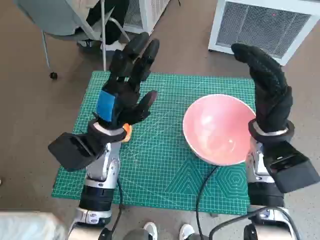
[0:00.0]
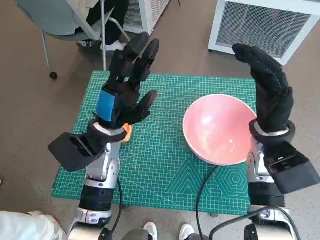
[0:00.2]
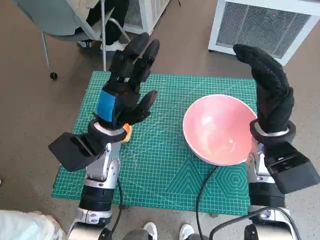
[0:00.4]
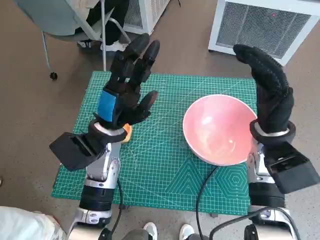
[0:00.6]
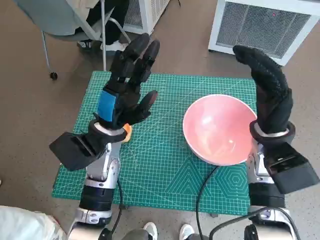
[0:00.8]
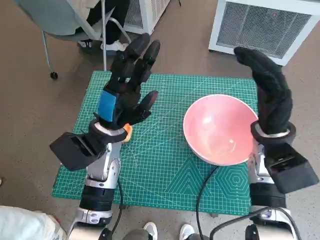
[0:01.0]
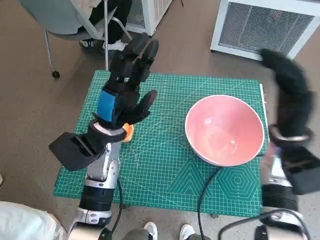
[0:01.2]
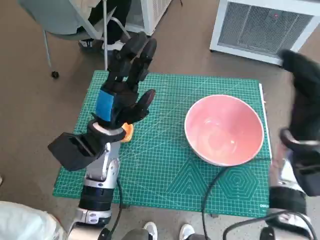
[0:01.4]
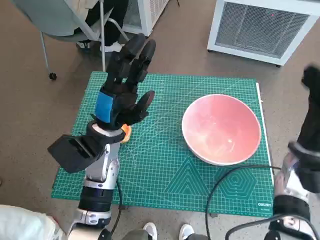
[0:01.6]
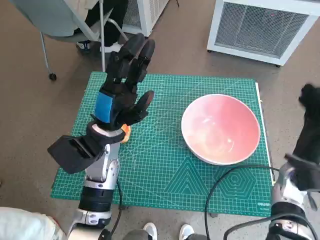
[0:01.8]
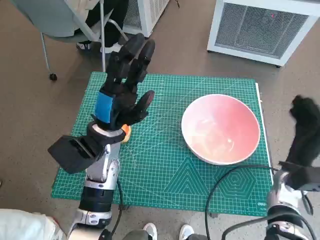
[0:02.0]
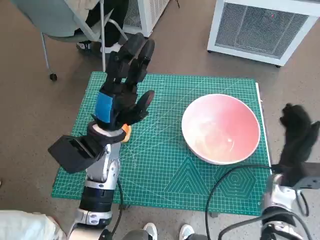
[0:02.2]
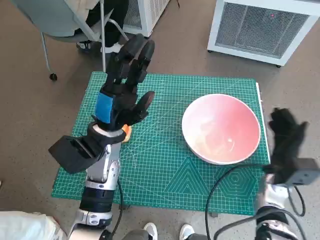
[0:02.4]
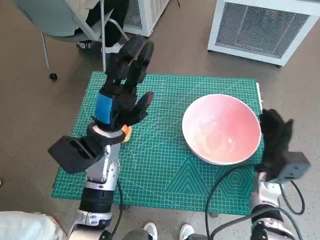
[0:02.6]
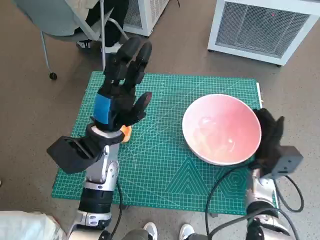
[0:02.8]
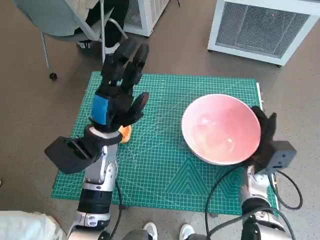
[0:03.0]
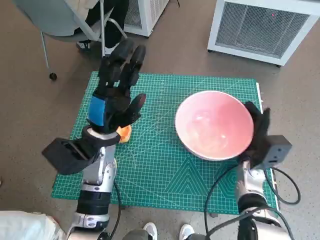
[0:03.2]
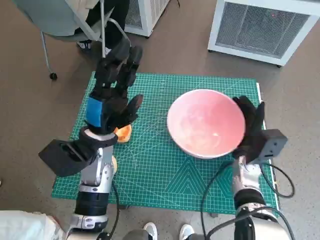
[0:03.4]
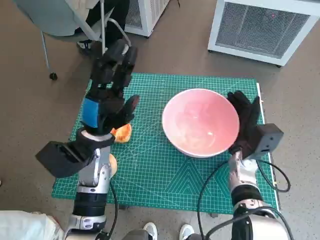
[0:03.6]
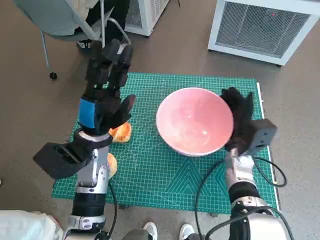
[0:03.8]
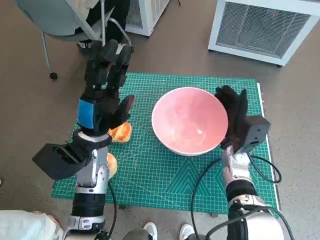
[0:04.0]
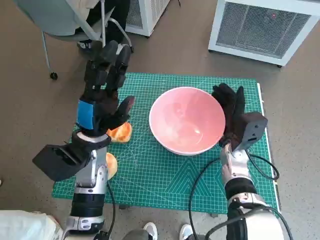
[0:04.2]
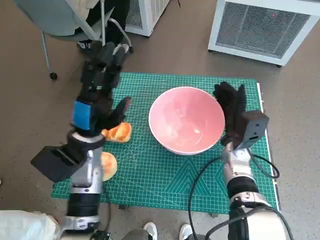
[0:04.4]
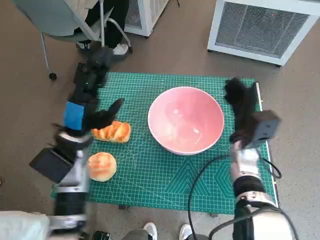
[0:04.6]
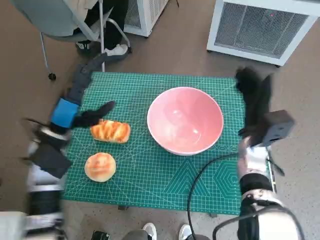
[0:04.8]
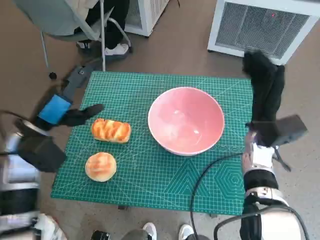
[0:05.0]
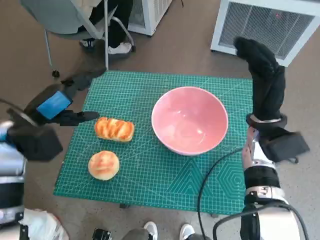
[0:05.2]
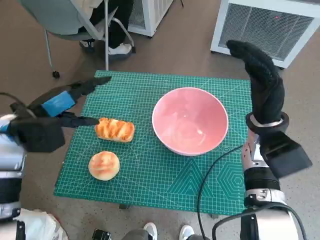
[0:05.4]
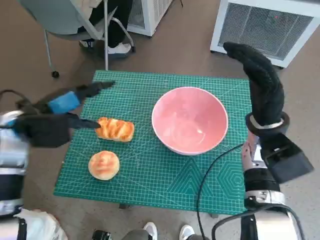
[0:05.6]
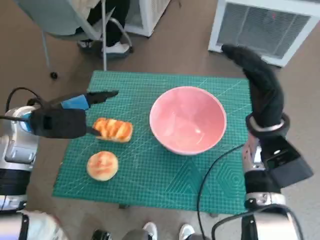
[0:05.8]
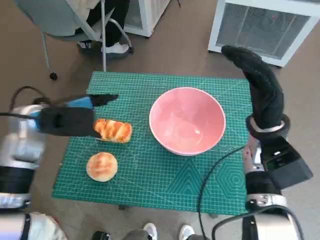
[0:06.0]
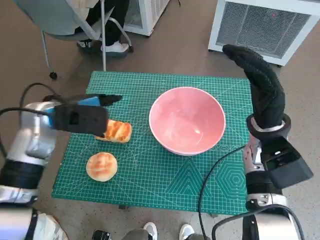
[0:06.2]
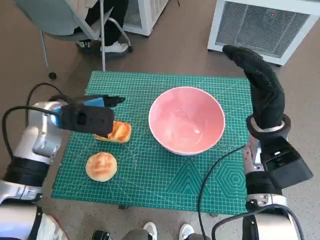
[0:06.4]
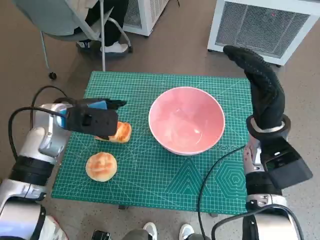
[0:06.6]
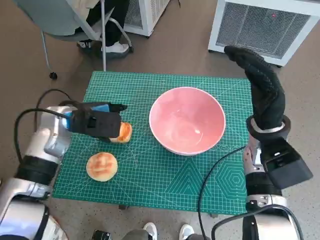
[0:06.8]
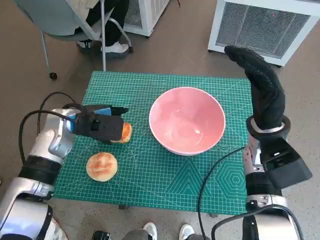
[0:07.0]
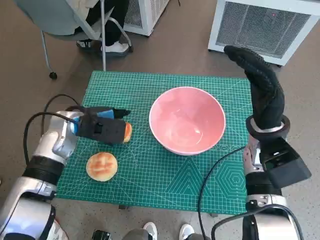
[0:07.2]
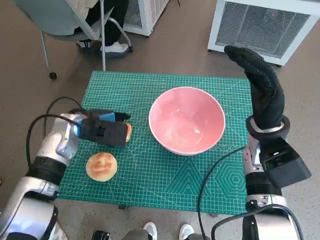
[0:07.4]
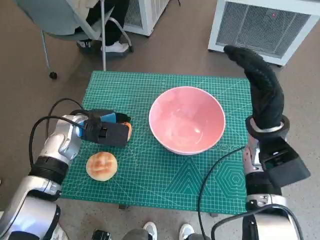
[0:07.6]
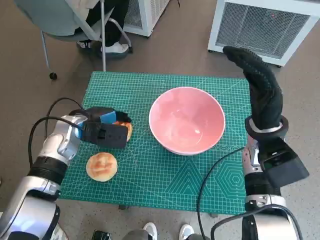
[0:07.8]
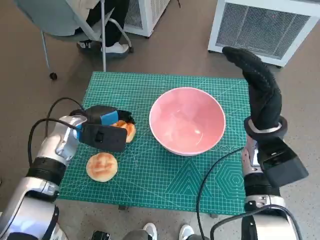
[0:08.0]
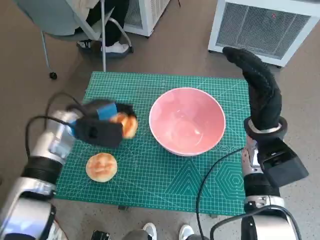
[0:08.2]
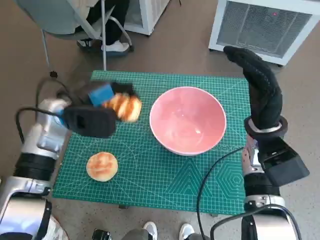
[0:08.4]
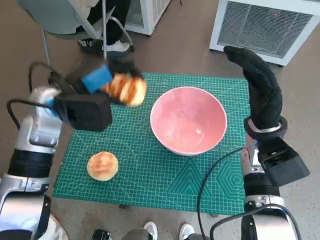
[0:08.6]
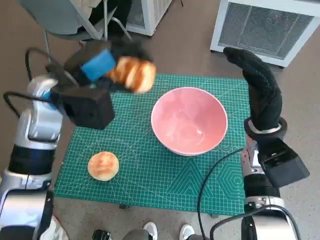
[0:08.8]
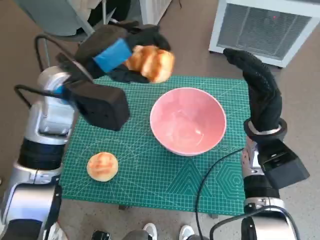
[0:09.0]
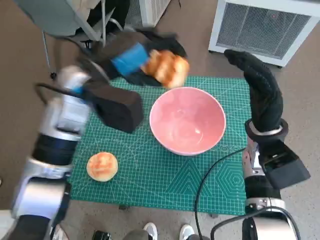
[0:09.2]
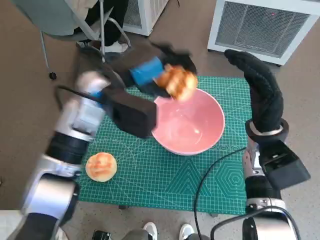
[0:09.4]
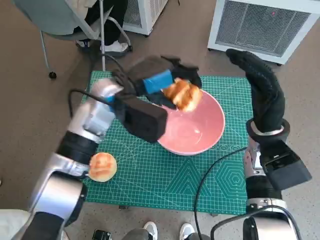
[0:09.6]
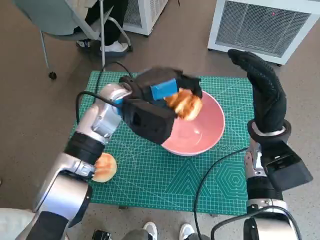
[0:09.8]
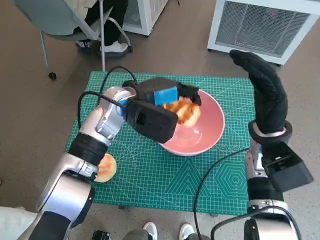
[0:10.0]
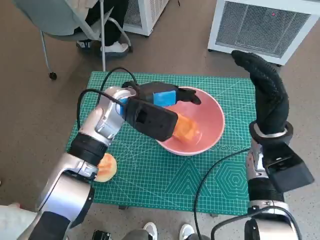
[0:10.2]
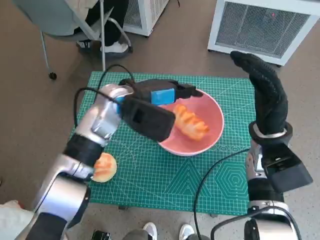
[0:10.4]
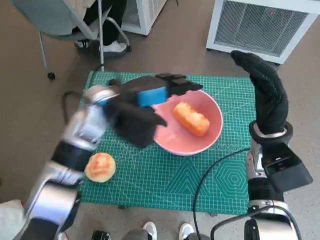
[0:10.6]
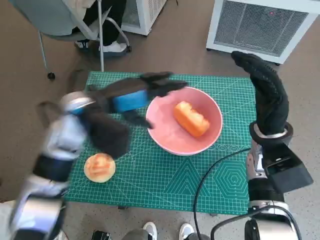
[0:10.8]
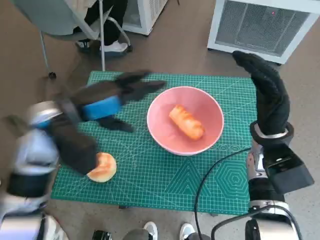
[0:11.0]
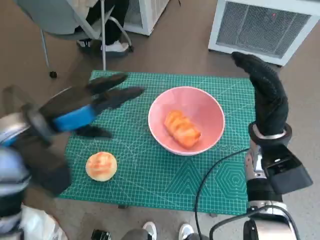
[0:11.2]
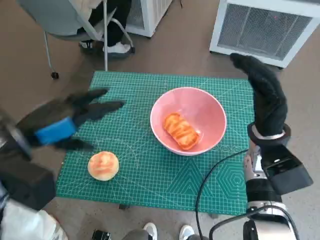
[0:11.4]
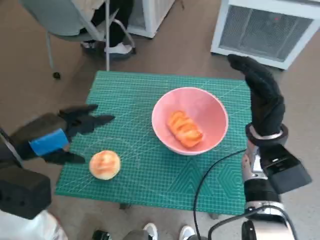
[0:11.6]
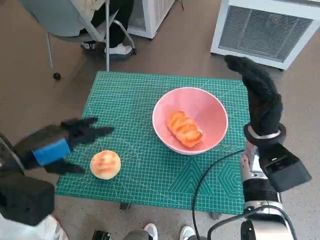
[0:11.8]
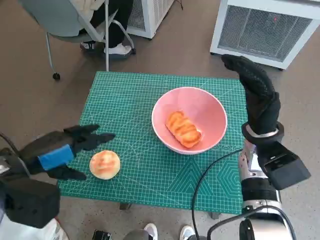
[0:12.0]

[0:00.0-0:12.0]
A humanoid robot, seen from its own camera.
Task of the whole recording: Push the bowl to the center of the table and put the bread into the bowl.
Step, 0.0 to 5.0 s: Move the pink bowl to the center of table with right hand.
Step, 5.2 to 7.8 s: Grasp the long bread with left hand.
Step, 8.0 to 10.6 s: Place the long bread in pink bowl with left hand.
1.6 to 3.0 s: The right hand goes roughly 10 cm downward and to the left.
3.0 to 4.4 s: The right hand heads to the left, covering about 5 cm.
4.4 to 6.0 s: The left hand moves to the left and upward, about 10 cm; the right hand travels upward by approximately 10 cm.
6.0 to 7.6 s: The left hand is displaced downward by approximately 5 cm.
7.6 to 9.0 s: The left hand is displaced upward by some 15 cm.
9.0 to 10.4 s: The left hand shifts about 10 cm downward and to the right.
10.4 to 12.0 s: The left hand heads to the left and backward, covering approximately 20 cm.

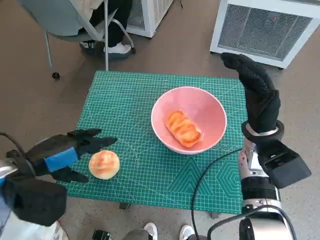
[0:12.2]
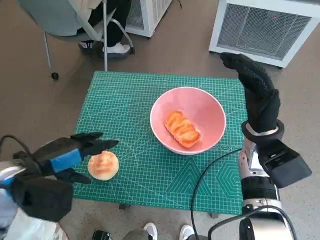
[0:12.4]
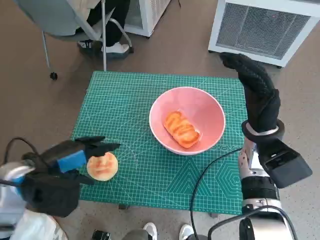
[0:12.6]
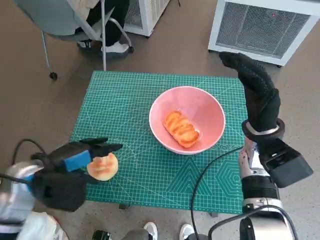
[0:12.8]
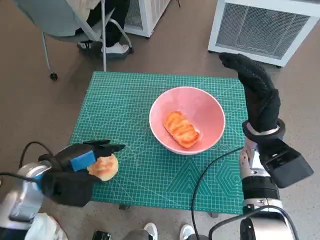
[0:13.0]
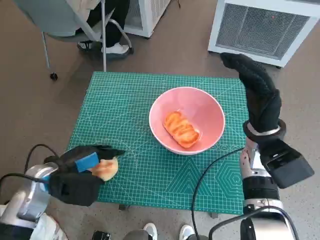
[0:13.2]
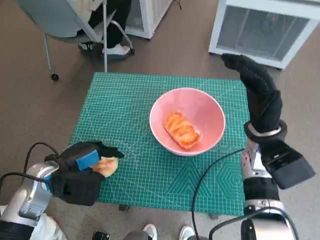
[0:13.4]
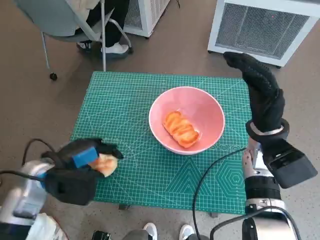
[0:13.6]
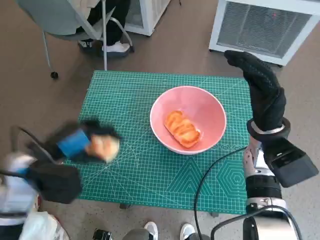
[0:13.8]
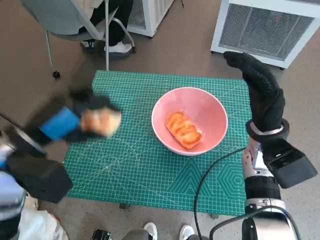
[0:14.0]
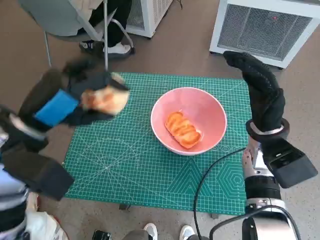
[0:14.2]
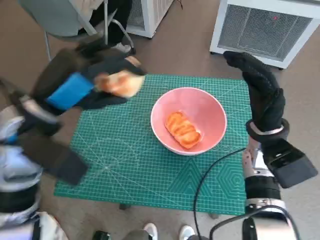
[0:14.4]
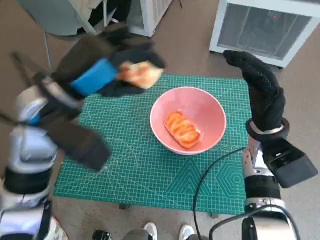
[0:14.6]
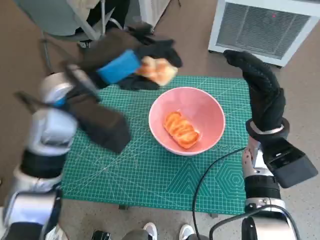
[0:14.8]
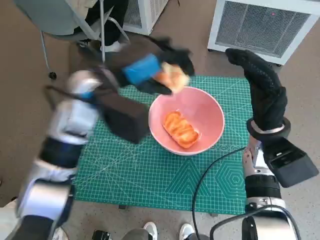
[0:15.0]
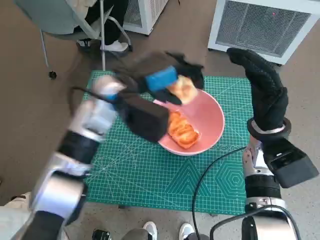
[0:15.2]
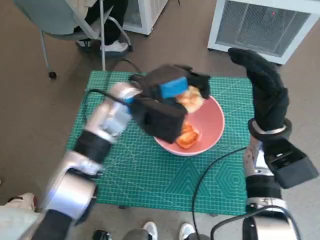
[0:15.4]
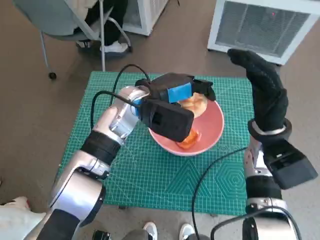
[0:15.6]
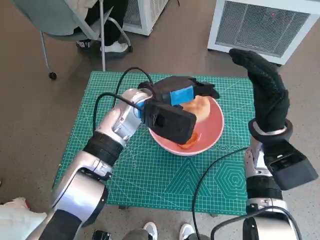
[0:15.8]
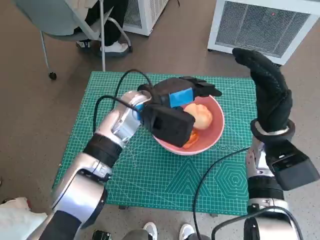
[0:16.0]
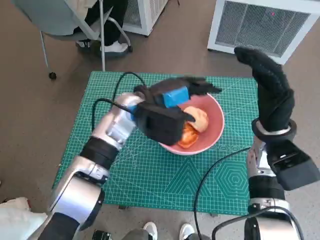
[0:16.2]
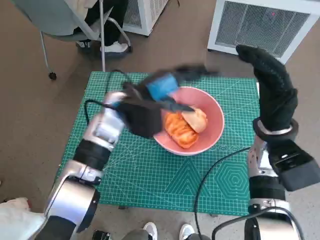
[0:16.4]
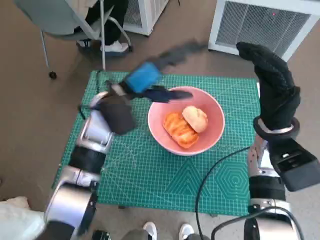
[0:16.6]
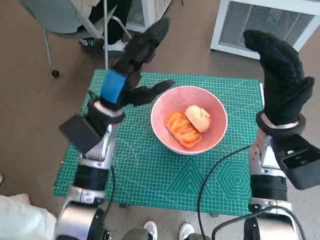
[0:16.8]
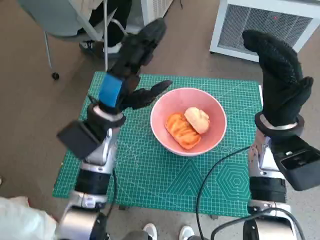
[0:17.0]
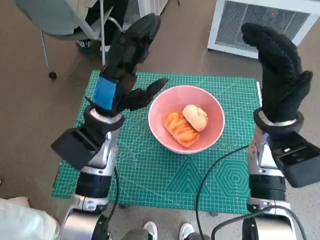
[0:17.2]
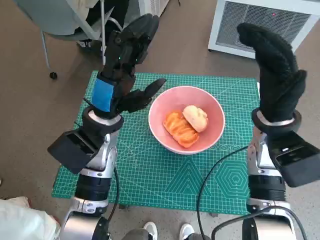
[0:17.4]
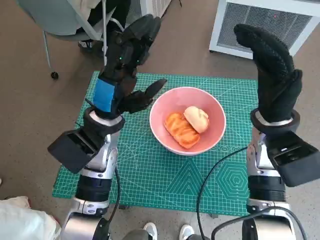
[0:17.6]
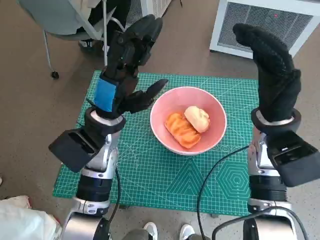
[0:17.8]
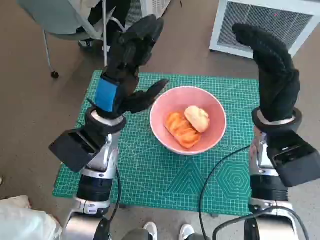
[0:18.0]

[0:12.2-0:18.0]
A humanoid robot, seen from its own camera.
Task of the whole recording: Push the bowl to the center of the table and put the bread into the bowl.
Step, 13.6 to 16.6 s: Place the round bread in pink bowl with left hand.
12.2 to 13.6 s: The left hand shifts about 10 cm downward.
13.6 to 15.0 s: The left hand heads upward, to the right and forward, covering approximately 20 cm.
15.0 to 16.6 s: The left hand goes about 5 cm downward.

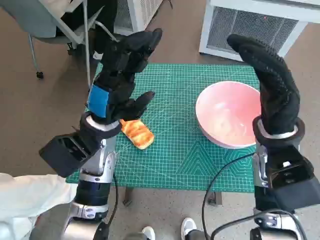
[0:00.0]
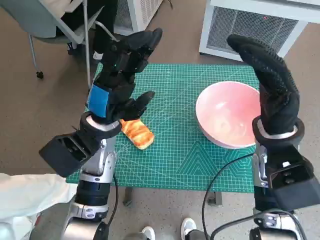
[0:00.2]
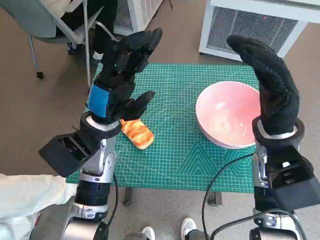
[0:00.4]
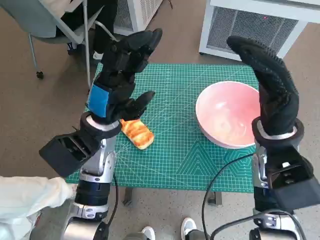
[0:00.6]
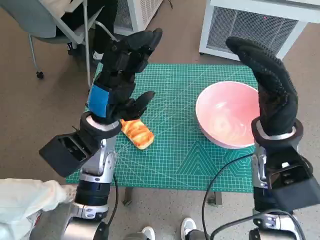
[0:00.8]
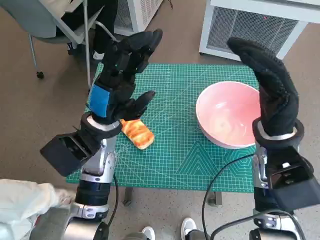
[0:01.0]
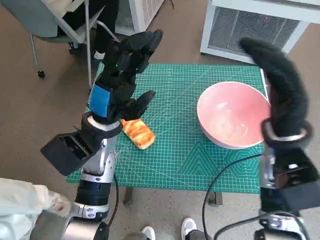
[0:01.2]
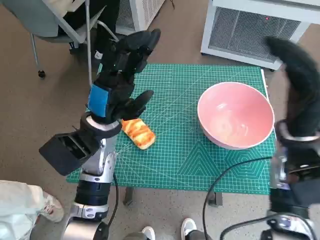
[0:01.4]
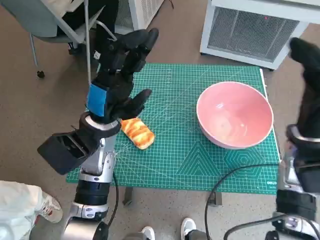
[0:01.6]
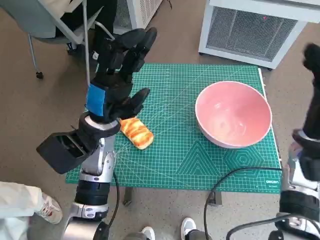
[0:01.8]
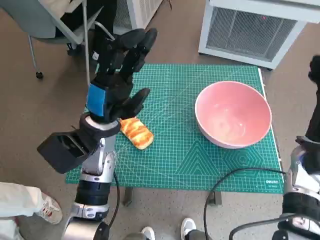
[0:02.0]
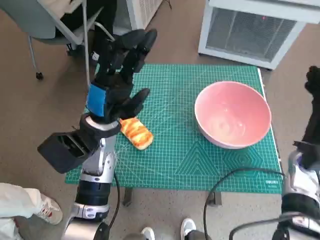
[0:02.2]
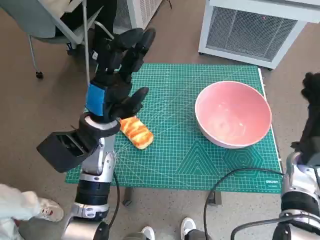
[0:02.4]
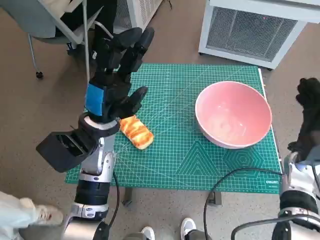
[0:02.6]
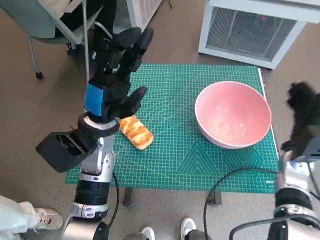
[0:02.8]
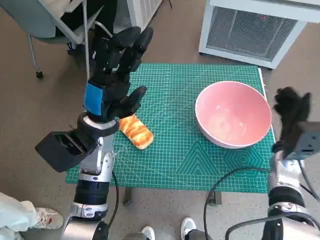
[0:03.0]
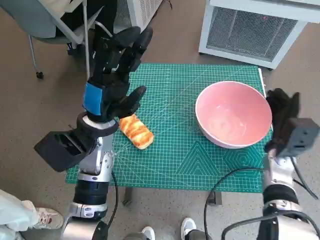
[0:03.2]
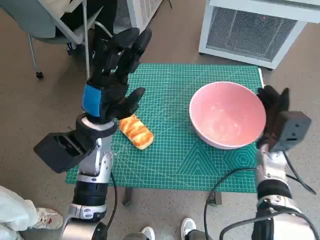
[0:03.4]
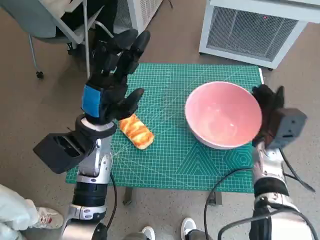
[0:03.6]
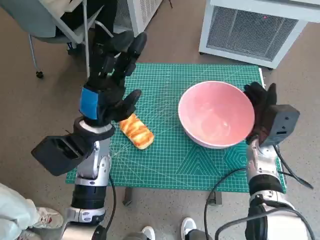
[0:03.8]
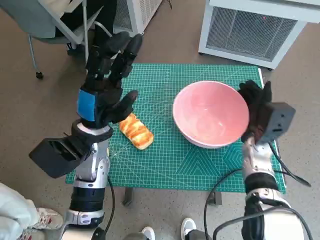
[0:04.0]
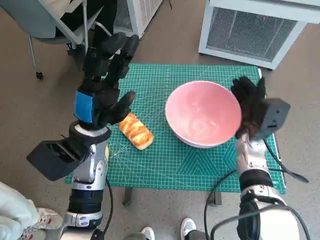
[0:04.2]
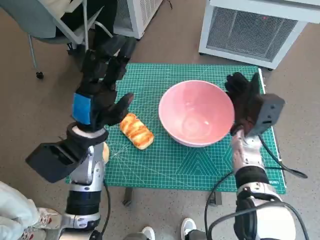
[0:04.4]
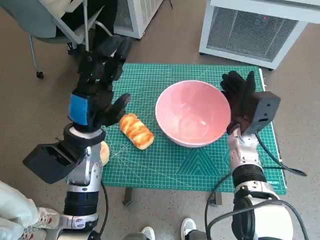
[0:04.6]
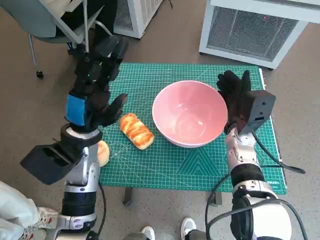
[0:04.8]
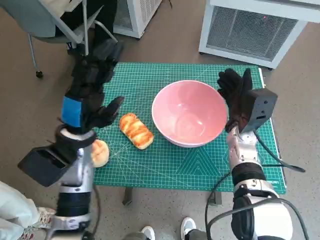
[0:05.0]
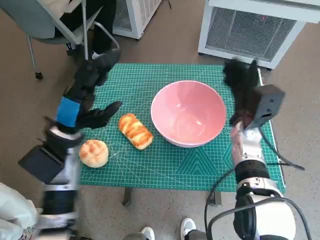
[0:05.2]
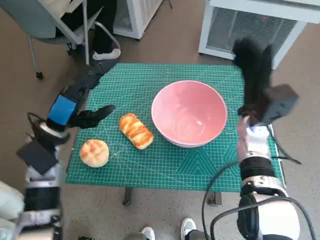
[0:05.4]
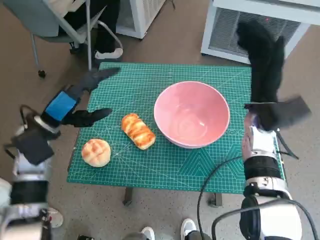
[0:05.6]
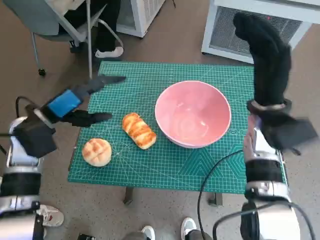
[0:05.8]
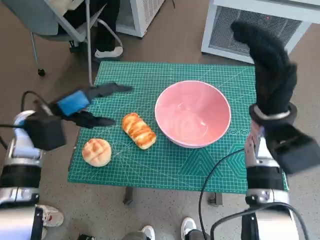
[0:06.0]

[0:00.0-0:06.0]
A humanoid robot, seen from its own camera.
Task of the whole recording: Push the bowl to the center of the table and put the bread into the bowl.
Step, 0.0 to 5.2 s: Move the pink bowl to the center of table with right hand.
1.6 to 3.0 s: The right hand goes approximately 10 cm downward.
3.0 to 4.4 s: The right hand moves to the left, roughly 10 cm.
4.4 to 6.0 s: The left hand goes about 10 cm to the left; the right hand heads upward, covering roughly 10 cm.
